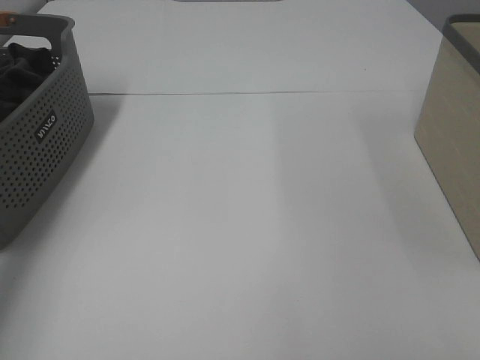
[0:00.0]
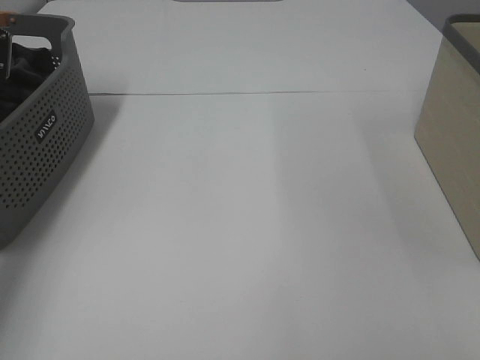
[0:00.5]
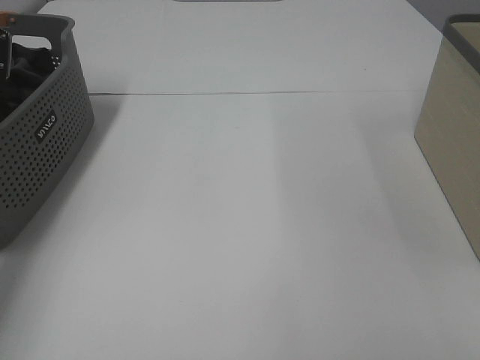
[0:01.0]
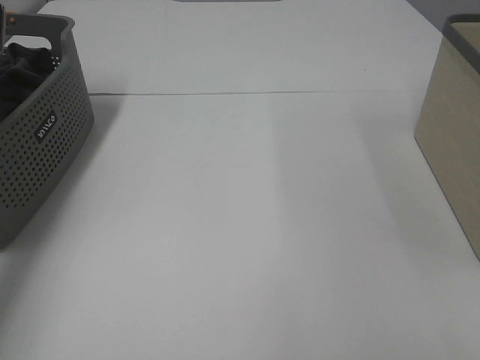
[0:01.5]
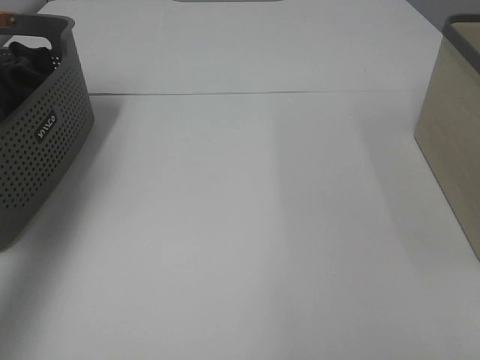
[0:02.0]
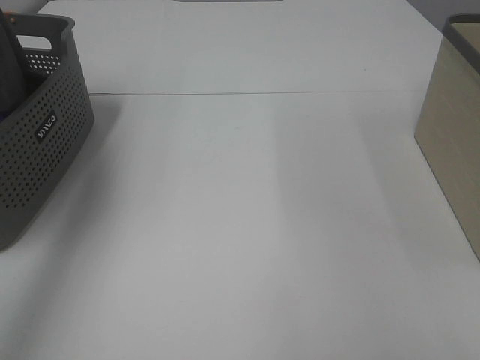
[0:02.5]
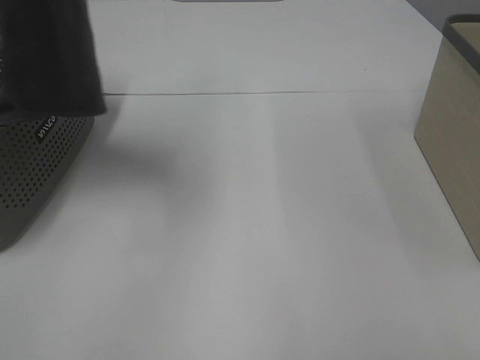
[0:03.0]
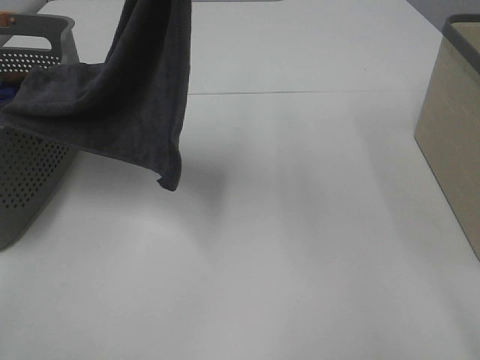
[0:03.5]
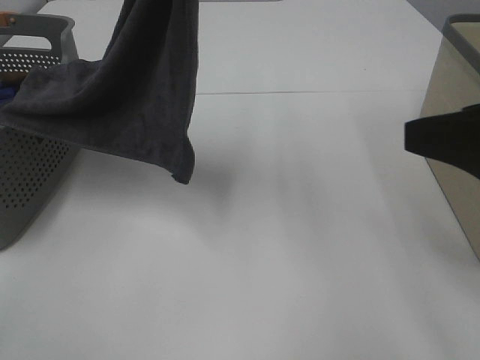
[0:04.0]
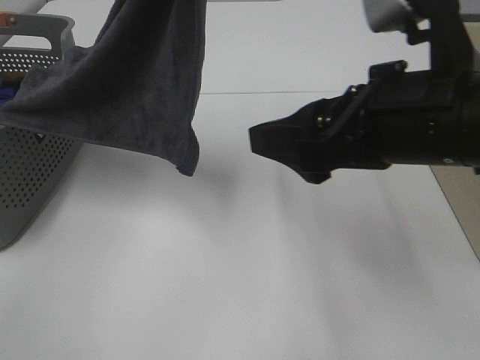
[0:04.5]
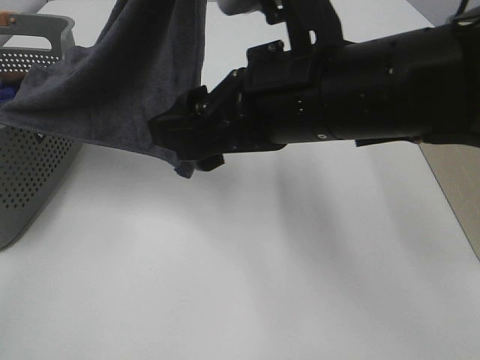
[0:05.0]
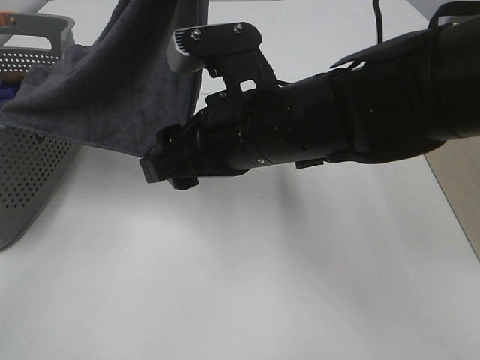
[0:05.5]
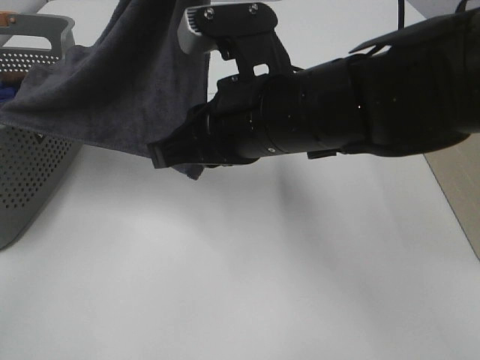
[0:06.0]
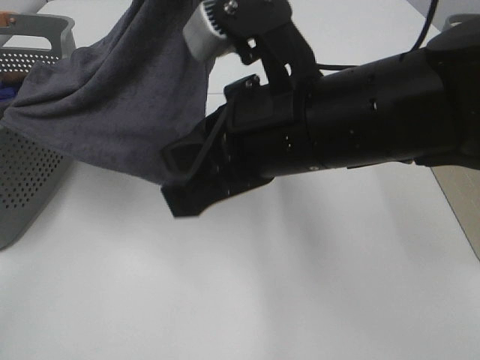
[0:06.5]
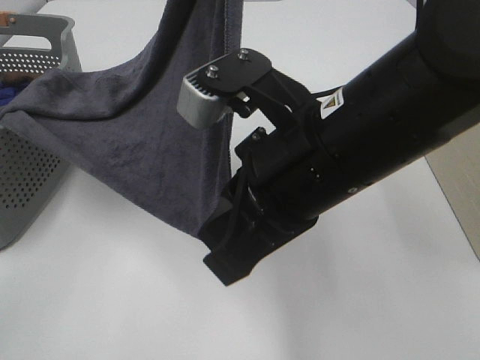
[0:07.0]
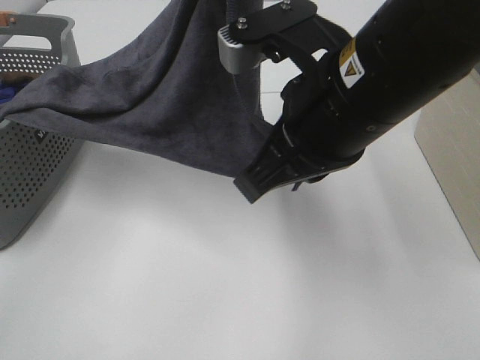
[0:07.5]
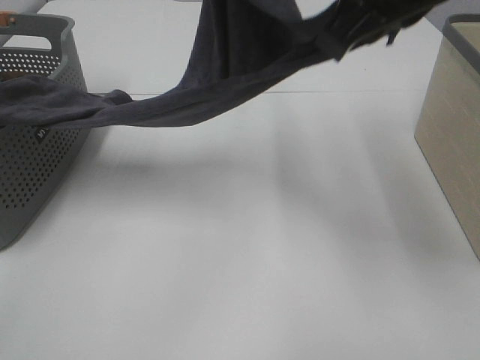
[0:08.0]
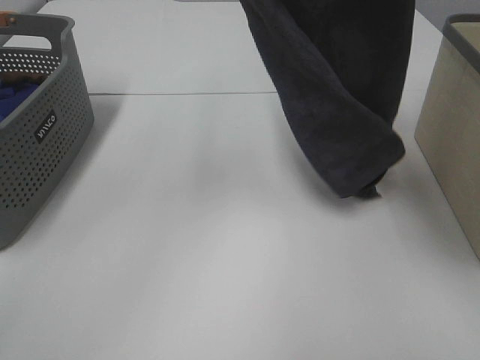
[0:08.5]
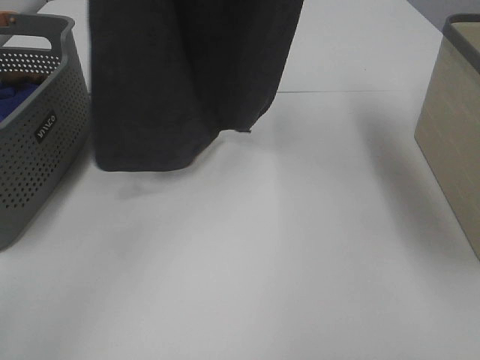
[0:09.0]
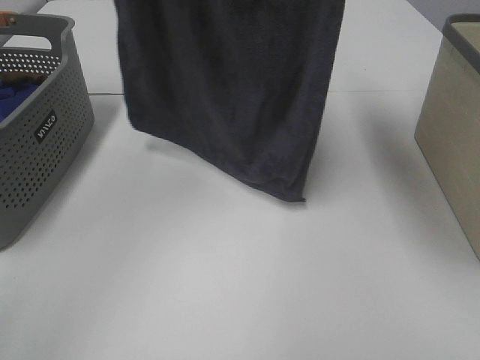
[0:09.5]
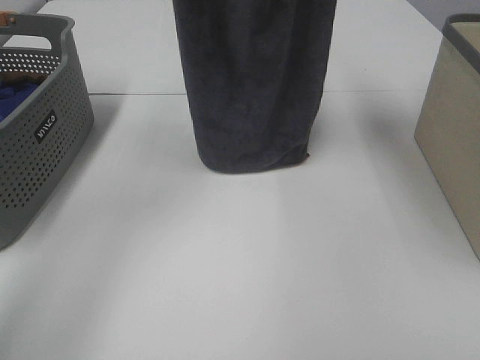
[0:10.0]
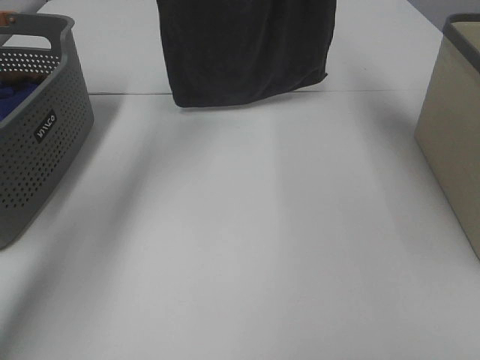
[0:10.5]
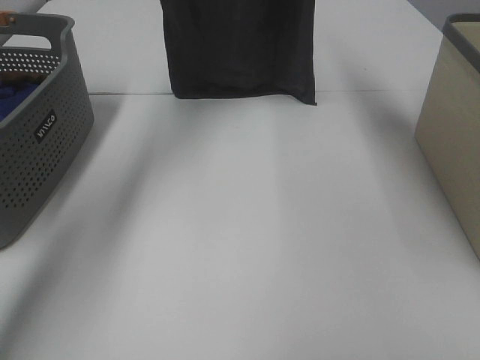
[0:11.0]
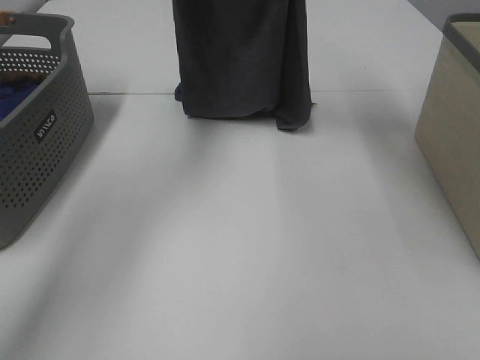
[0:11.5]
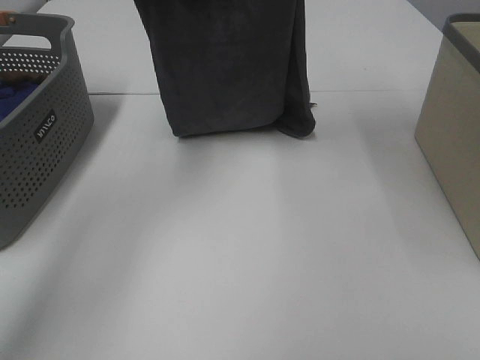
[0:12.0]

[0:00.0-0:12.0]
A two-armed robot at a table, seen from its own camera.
Task of the whole recording: Remove the towel and place it.
Step, 3.0 to 7.5 s: Right hand: grab a corner of the grey towel and straighten it.
0.0 to 2.0 s: The left gripper goes some 15 cm upward, and closes up.
2.0 to 4.0 s: The left gripper heads to the right, covering some 25 cm. Meanwhile the right gripper heads forward, covering approximately 15 cm.
4.0 to 6.0 s: The right gripper moves to the left and forward, roughly 20 cm, and closes.
6.0 to 8.0 s: The right gripper travels upward by roughly 15 cm.
8.0 to 10.0 s: The left gripper travels forward and to the left by some 15 cm, while the right gripper is displaced forward and upward by roughly 15 cm.
10.0 to 12.0 s: Both grippers move downward, approximately 10 cm.

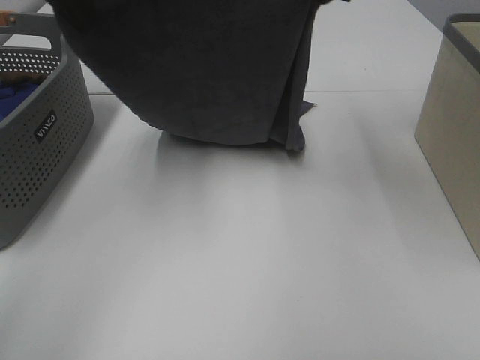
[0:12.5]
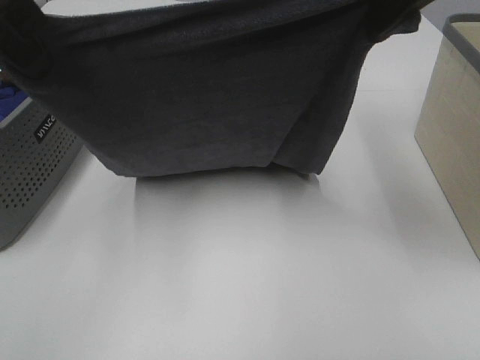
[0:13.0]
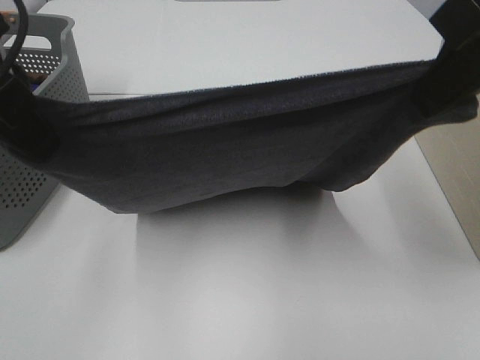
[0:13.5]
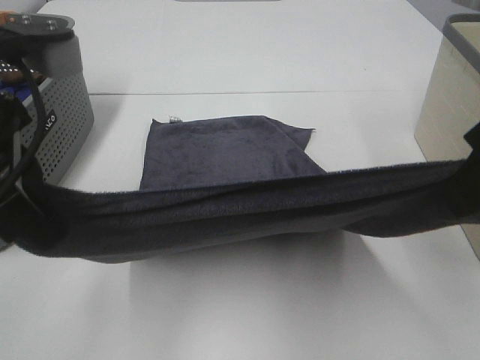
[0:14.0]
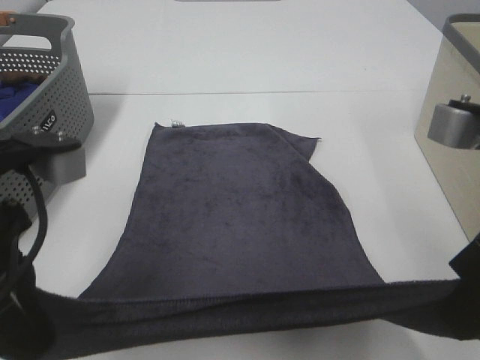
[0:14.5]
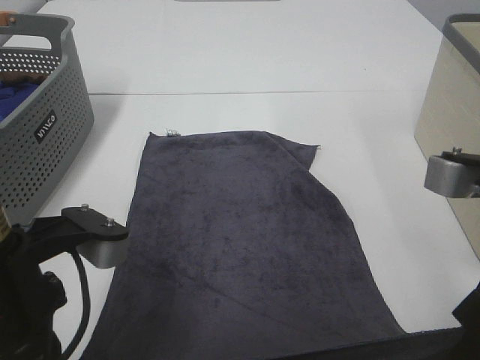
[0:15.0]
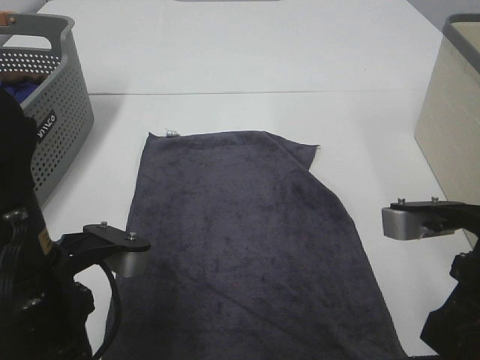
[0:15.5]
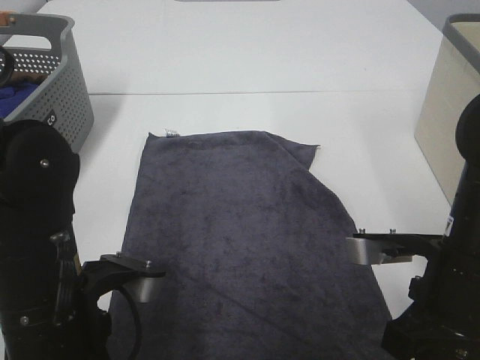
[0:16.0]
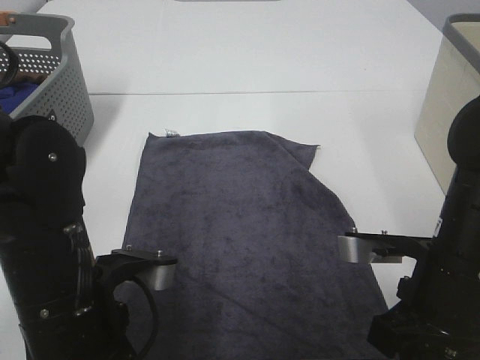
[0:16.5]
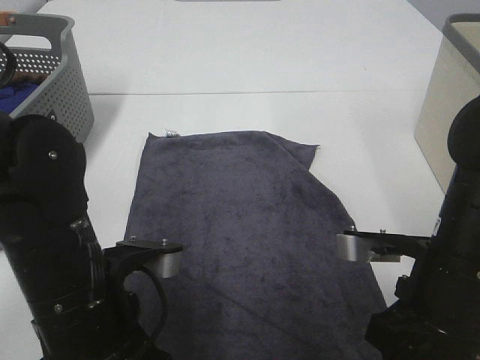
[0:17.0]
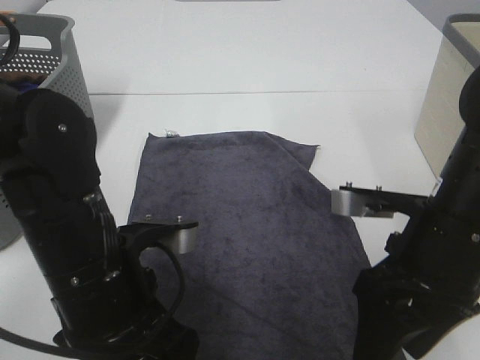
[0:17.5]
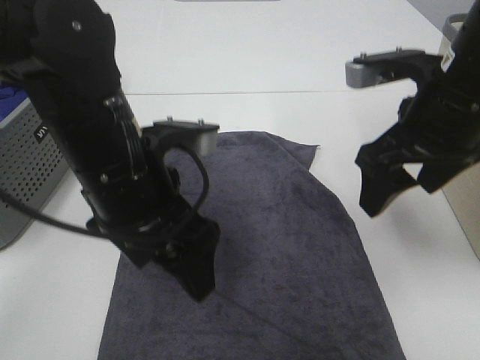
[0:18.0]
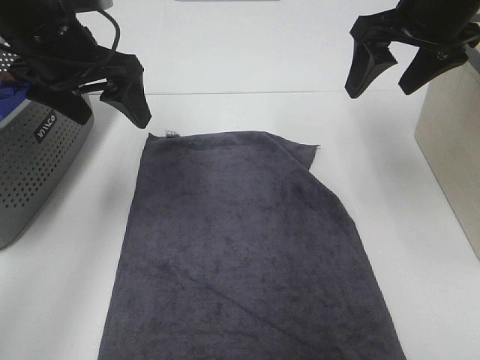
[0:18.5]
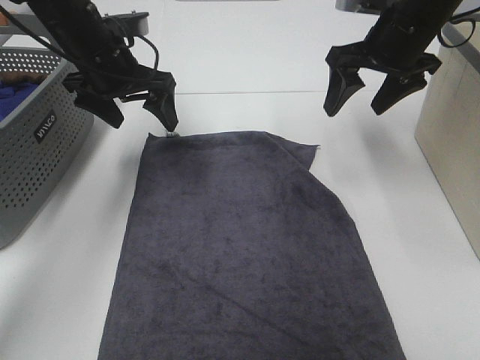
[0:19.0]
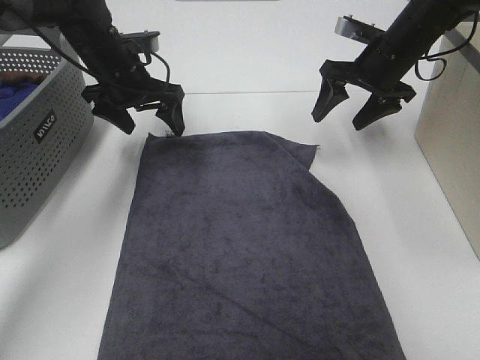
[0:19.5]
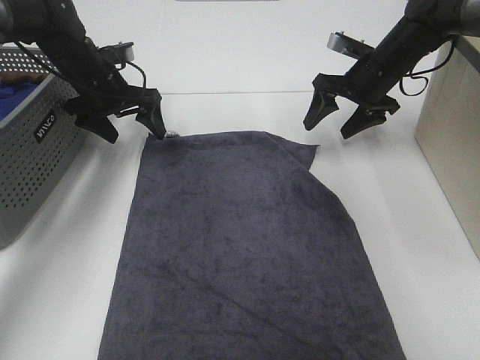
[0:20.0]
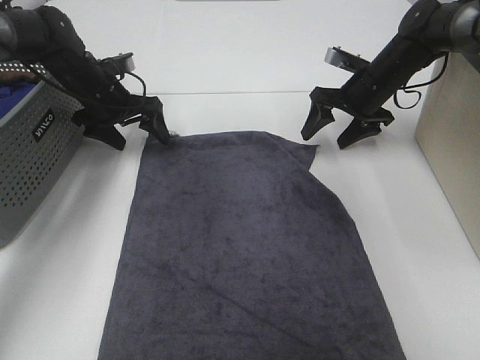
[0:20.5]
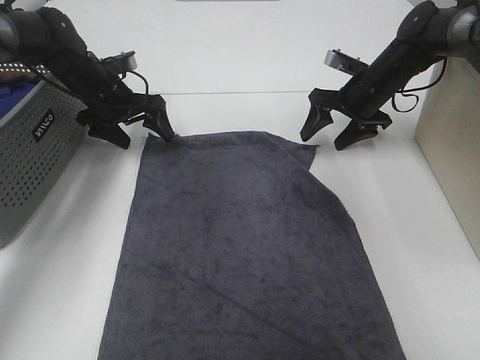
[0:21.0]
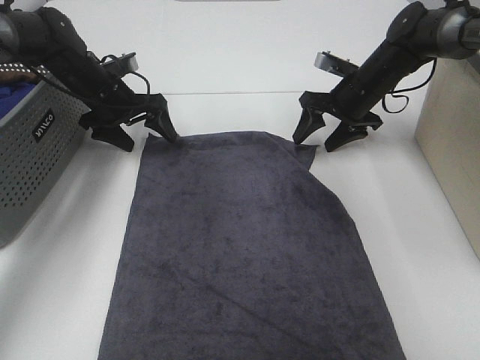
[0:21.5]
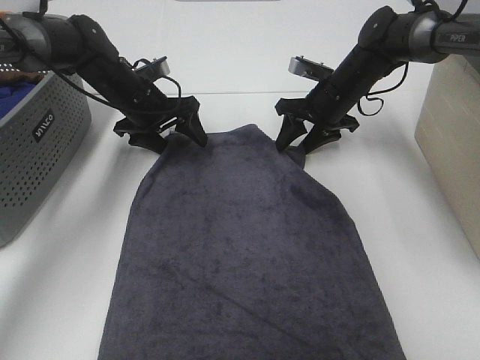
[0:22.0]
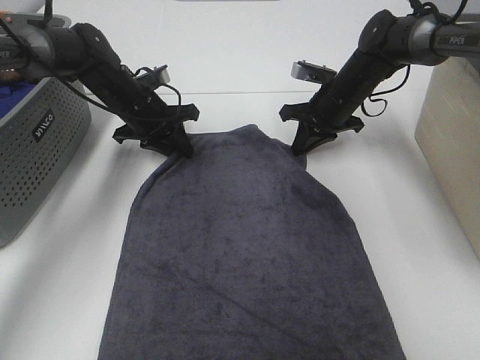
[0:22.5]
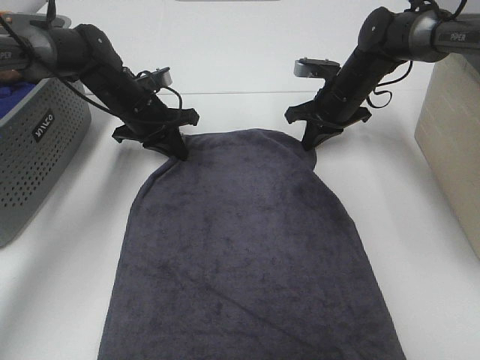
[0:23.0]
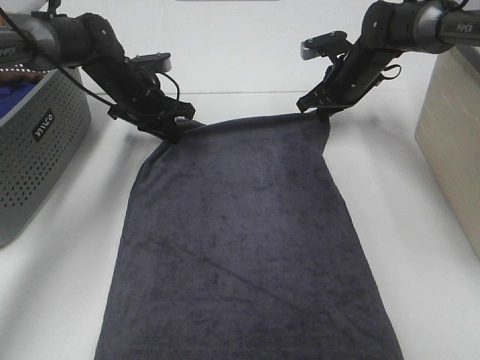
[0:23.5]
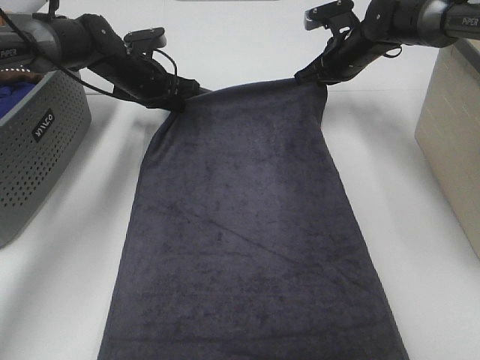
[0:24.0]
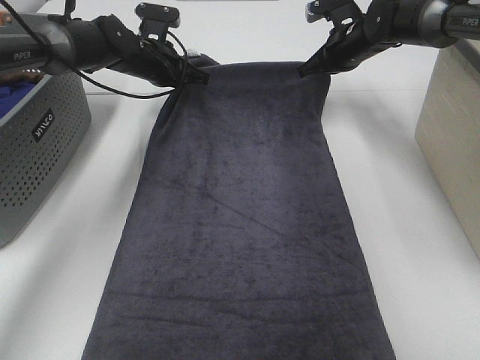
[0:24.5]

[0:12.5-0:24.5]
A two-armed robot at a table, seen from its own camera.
Task of the whole recording: Remove the towel and place it.
Step, 13.0 to 21.5 s: Left hand:adjust the gray towel.
Step, 13.0 to 21.5 s: Right hand:adjust the gray towel.
12.5 to 14.5 s: Both grippers move backward and downward, roughly 25 cm.
14.5 to 16.5 s: The right gripper travels downward by roughly 10 cm. The left gripper goes approximately 10 cm downward and to the right.
16.5 to 18.5 s: Both grippers move forward and upward, about 25 cm. The left gripper opens up; the right gripper opens.
18.5 to 20.5 s: Both grippers travel together downward and forward, approximately 20 cm.
20.5 to 22.5 s: The right gripper shifts by roughly 5 cm, and closes its fingers, while the left gripper goes approximately 5 cm to the right, and closes up.
22.5 to 24.5 s: The right gripper heads upward and forward, covering some 10 cm. The left gripper shifts some 5 cm forward.

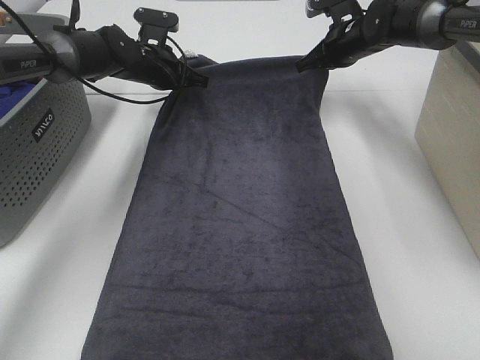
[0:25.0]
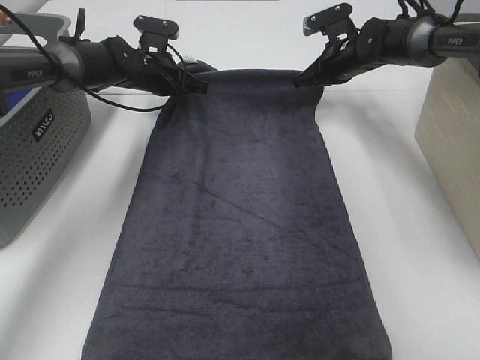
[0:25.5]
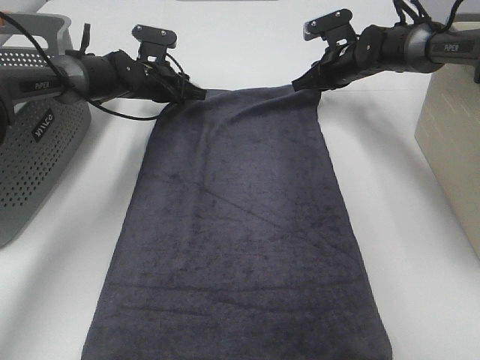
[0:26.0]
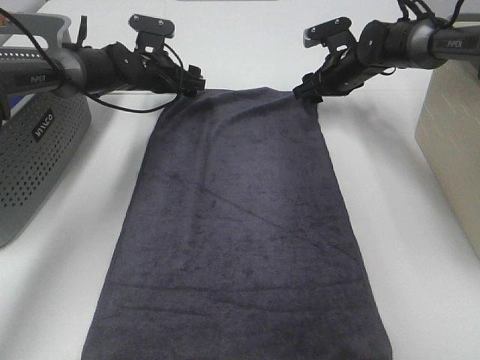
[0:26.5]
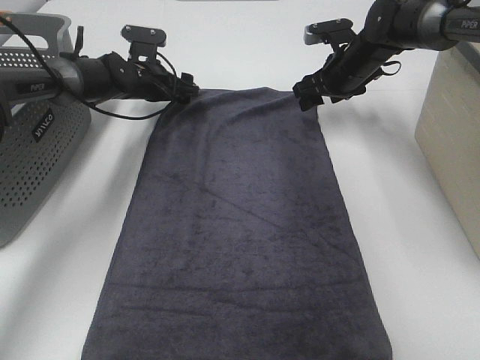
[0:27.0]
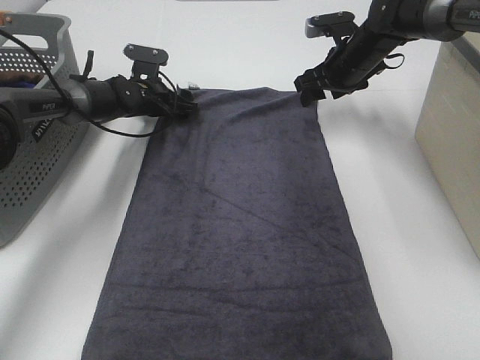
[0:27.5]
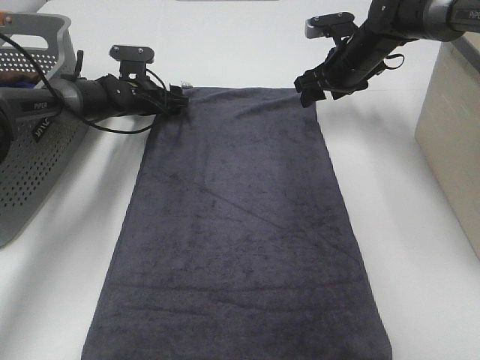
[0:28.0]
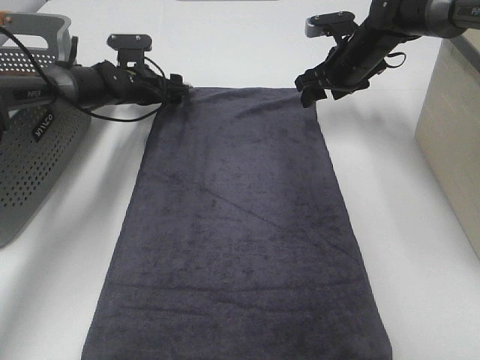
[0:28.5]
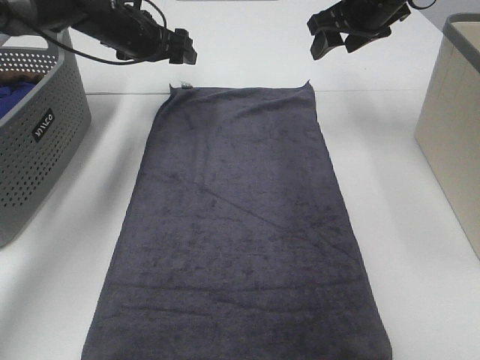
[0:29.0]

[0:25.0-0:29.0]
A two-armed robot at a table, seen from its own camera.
Task of the whole recording: Remove the towel and place it.
25.0 to 27.0 s: The right gripper opens. Meanwhile the left gripper opens.
27.0 to 29.0 s: The two grippers go some 10 cm upward.
